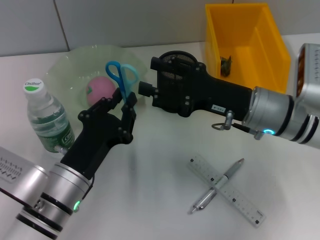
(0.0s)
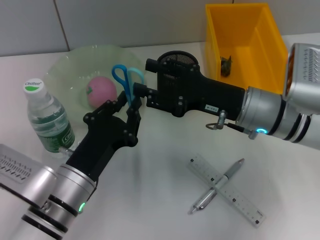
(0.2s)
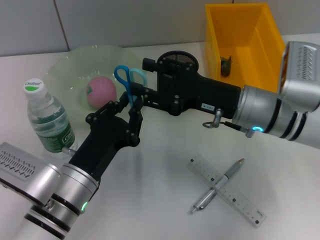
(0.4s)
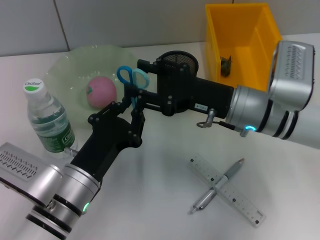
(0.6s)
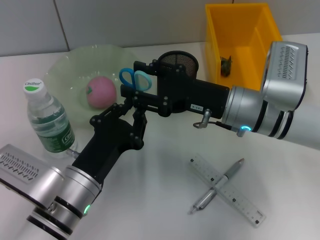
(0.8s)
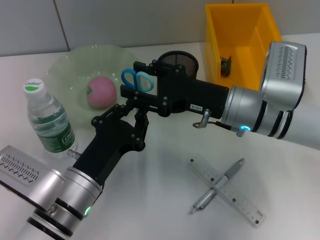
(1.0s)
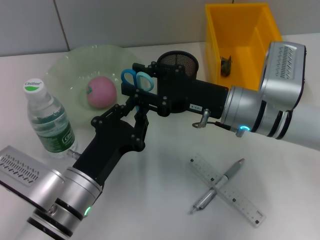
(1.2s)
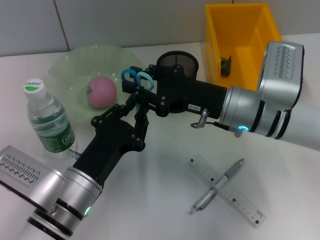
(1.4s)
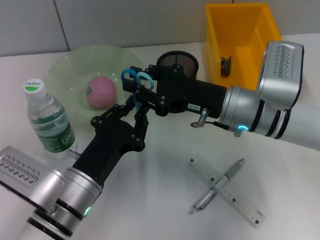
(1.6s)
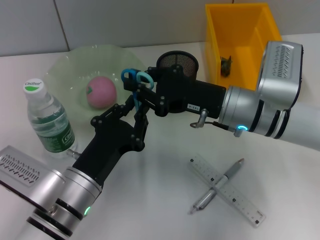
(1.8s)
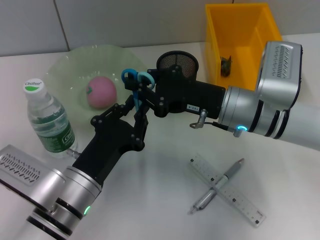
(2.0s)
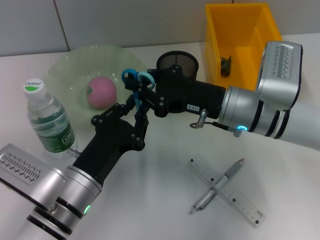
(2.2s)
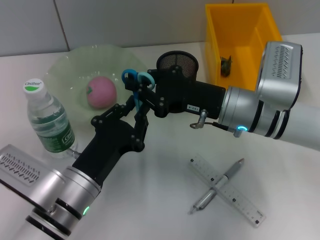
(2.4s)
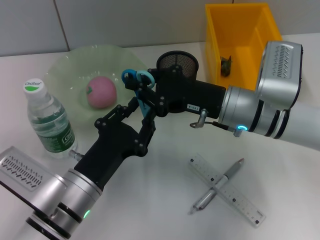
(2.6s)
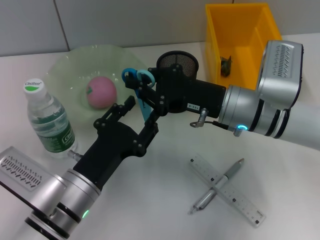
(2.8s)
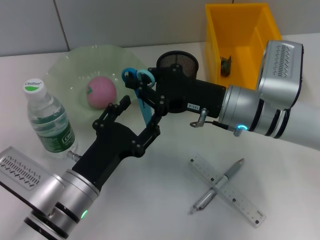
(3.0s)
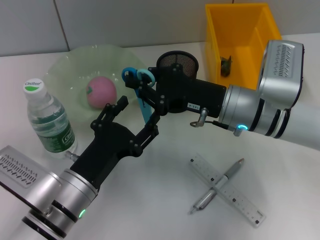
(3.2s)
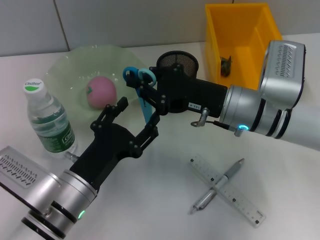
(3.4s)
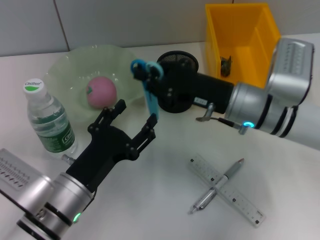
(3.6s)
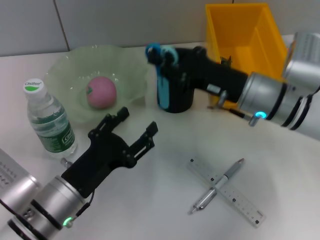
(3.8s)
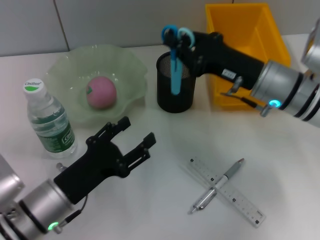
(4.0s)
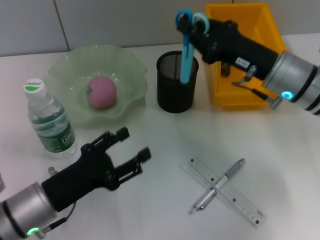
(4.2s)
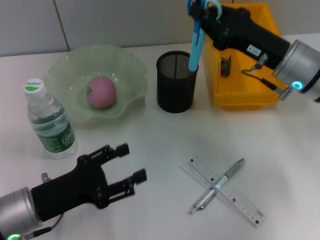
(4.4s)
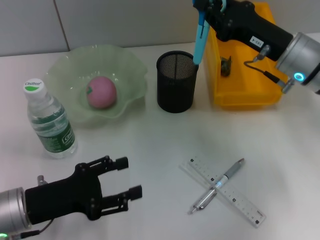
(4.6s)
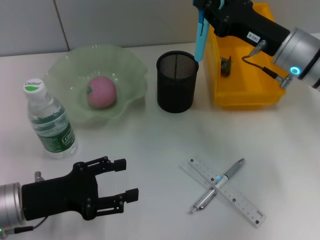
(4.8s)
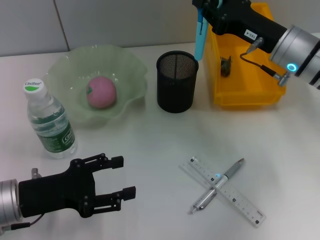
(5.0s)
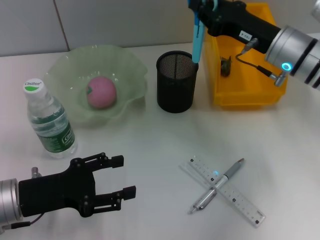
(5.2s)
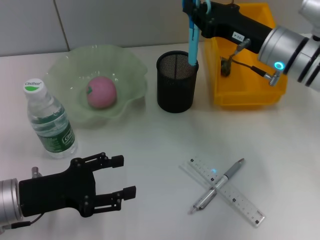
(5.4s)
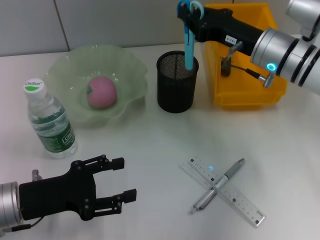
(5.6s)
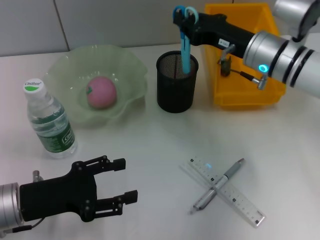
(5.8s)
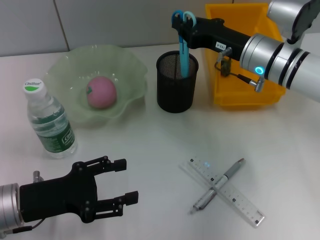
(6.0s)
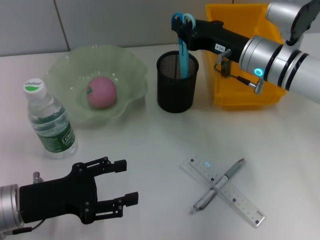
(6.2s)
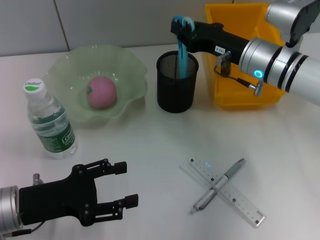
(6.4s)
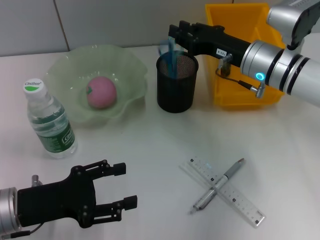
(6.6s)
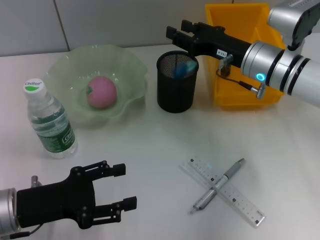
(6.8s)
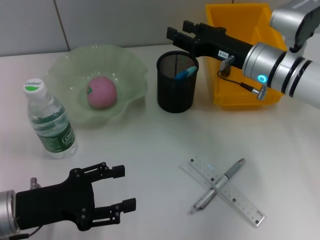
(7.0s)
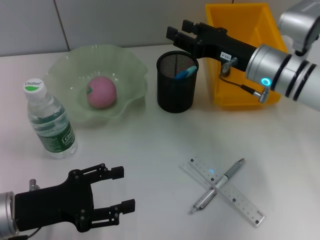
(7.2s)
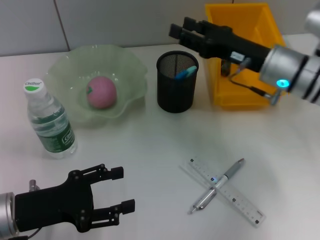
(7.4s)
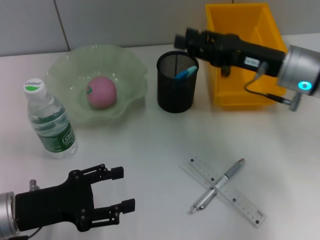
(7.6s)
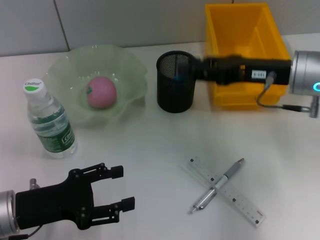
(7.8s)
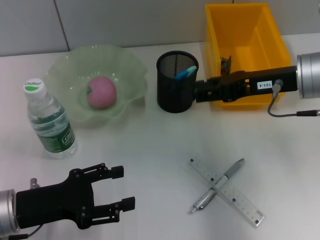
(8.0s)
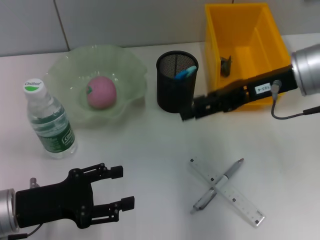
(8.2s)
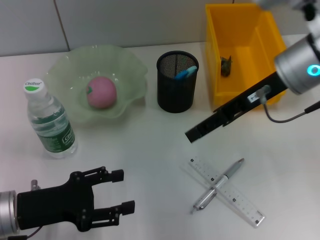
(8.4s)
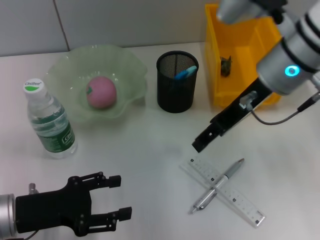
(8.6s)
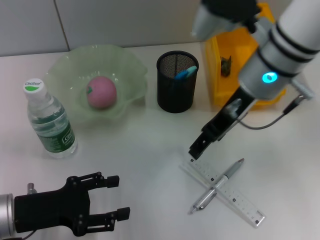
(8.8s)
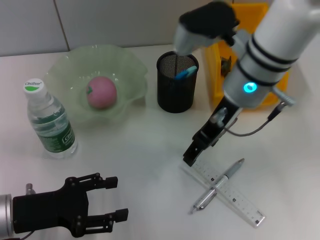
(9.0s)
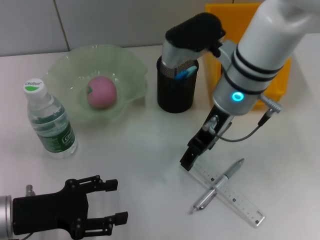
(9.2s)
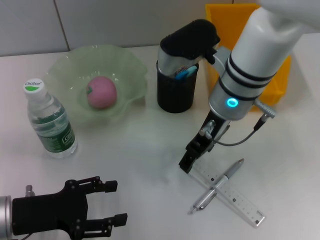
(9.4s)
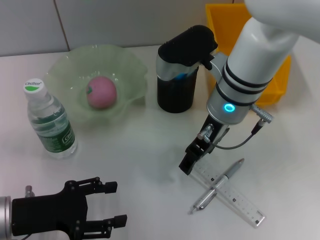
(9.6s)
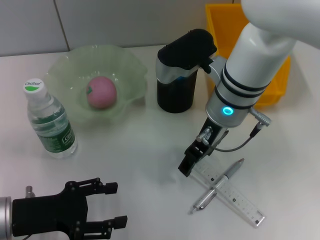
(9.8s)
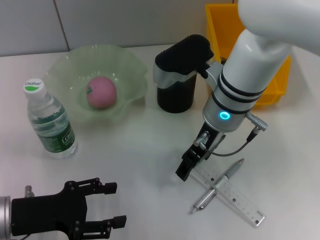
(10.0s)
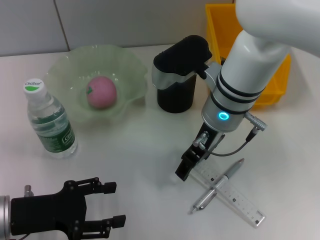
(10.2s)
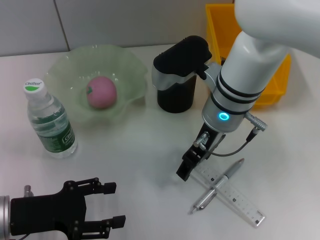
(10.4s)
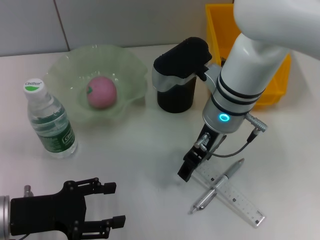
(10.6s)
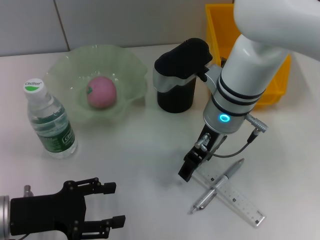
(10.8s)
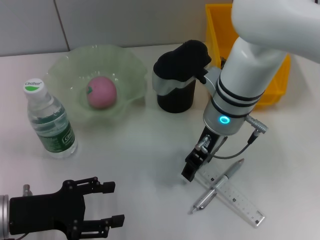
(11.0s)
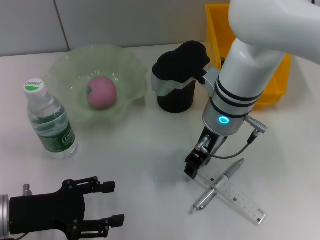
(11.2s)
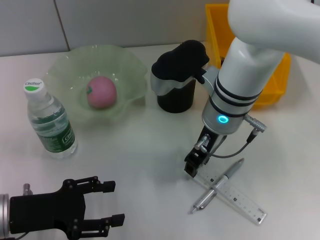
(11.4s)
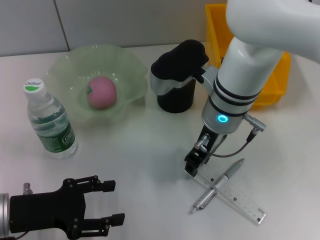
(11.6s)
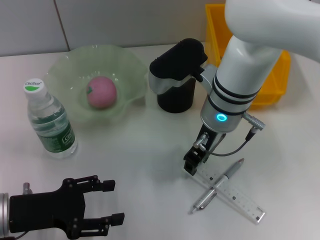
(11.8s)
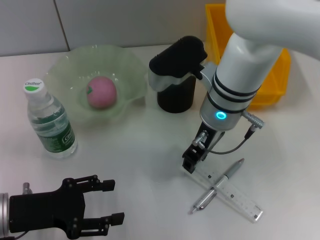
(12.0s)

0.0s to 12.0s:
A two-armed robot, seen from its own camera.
Step, 0.0s to 2.8s: Pass the blue scissors from the left hand to the right hand.
Step, 3.0s to 6.8s: Place the blue utility knife into the pen holder with the right hand.
Step, 7.0s to 11.6s: Grab the ruler with the right hand.
0.0s to 1.6s: The right gripper closes.
1.6s to 3.0s: The right gripper closes; the left gripper opens up.
3.0s to 4.4s: The right gripper goes about 5 cm to the right. The left gripper travels to the left by approximately 10 cm, and opens.
4.4s to 6.0s: The right gripper ends up roughly 5 cm from where it was.
6.0s to 7.6s: The right gripper is displaced backward by roughly 5 cm, and opens its fingers.
7.6s to 9.0s: The right gripper goes some 10 cm to the left.
9.0s to 10.4s: The right gripper ends up approximately 5 cm from where it was.
10.4s to 12.0s: The right gripper closes its fingers.

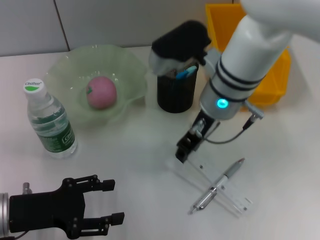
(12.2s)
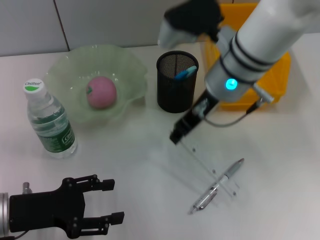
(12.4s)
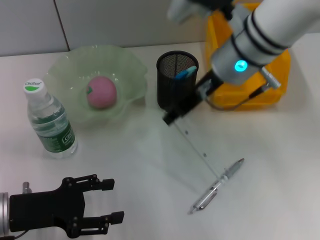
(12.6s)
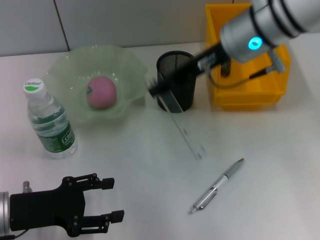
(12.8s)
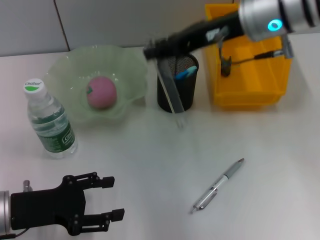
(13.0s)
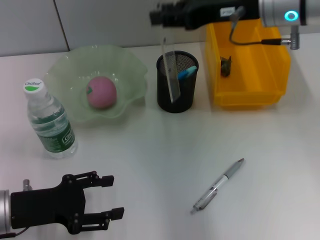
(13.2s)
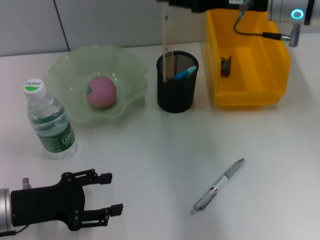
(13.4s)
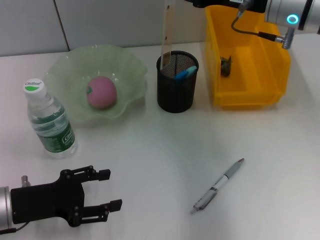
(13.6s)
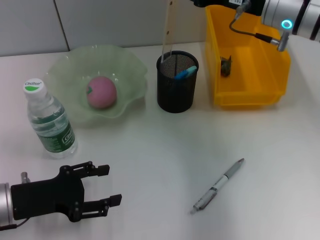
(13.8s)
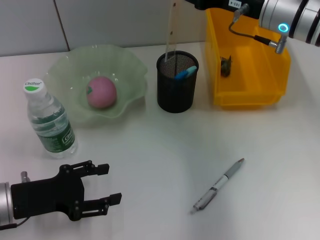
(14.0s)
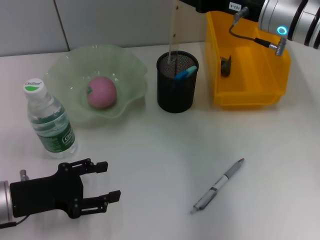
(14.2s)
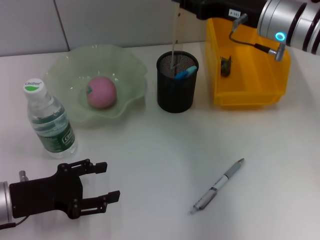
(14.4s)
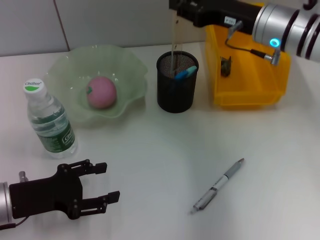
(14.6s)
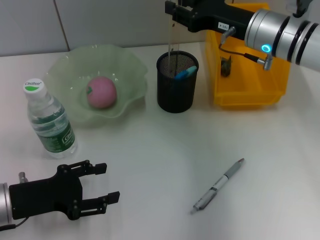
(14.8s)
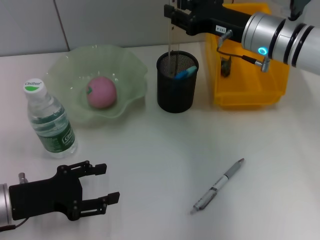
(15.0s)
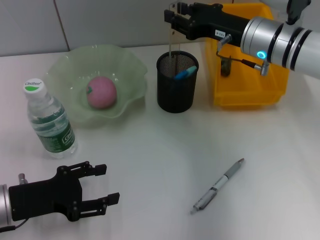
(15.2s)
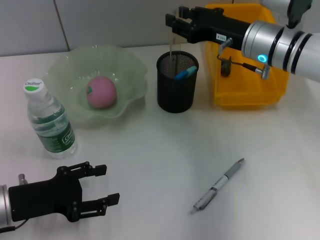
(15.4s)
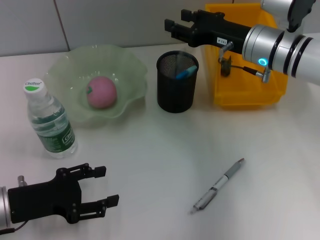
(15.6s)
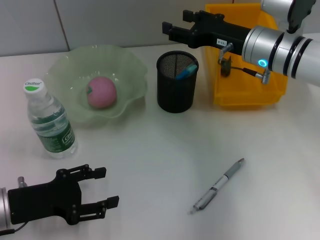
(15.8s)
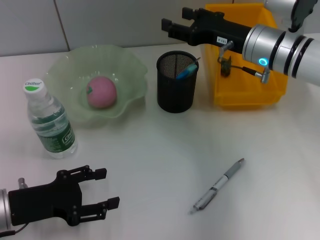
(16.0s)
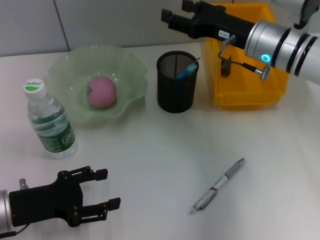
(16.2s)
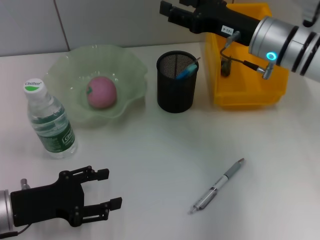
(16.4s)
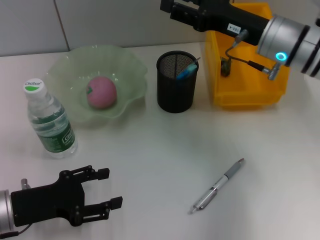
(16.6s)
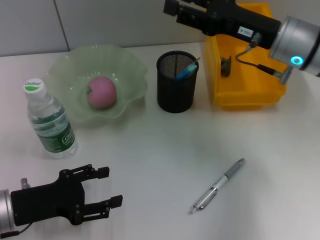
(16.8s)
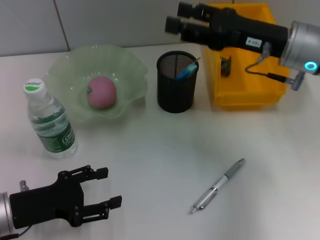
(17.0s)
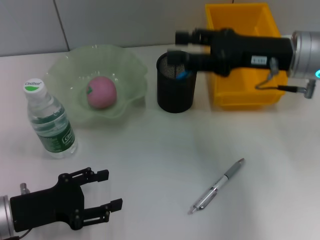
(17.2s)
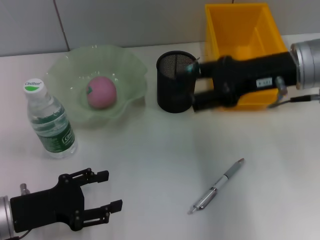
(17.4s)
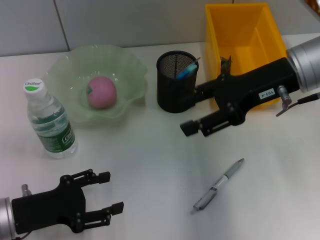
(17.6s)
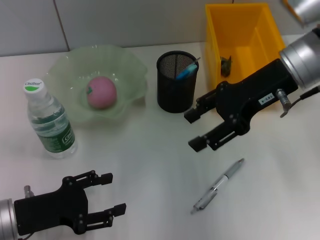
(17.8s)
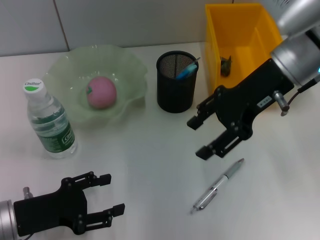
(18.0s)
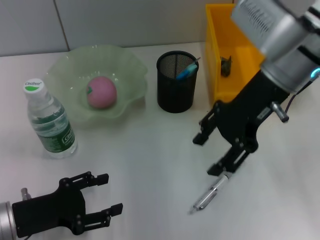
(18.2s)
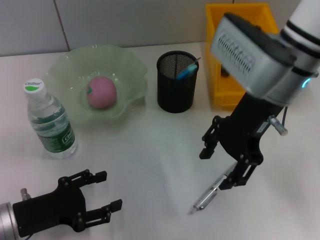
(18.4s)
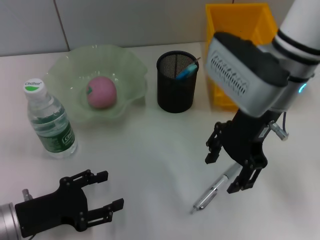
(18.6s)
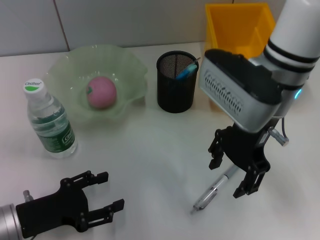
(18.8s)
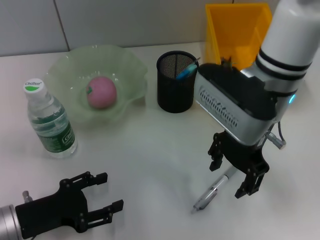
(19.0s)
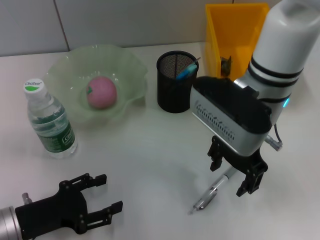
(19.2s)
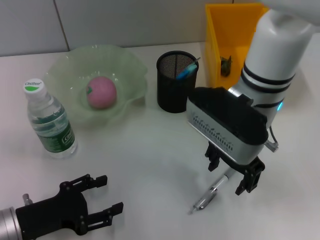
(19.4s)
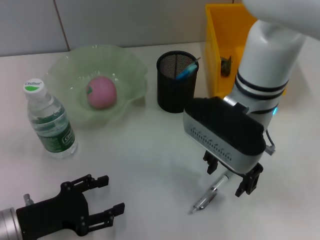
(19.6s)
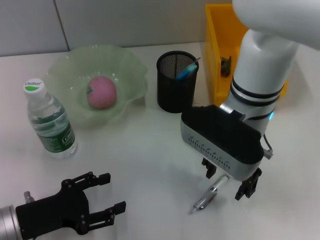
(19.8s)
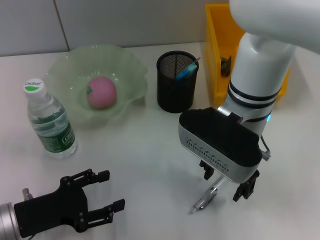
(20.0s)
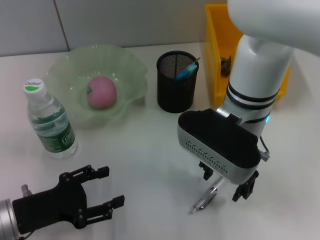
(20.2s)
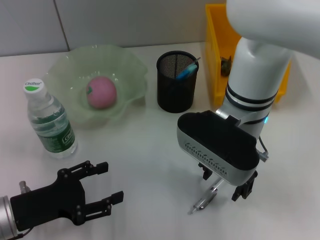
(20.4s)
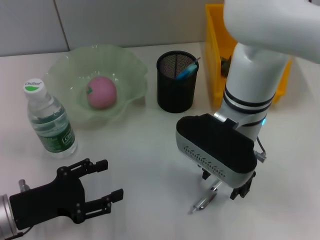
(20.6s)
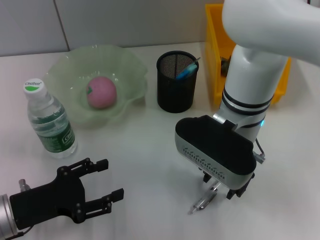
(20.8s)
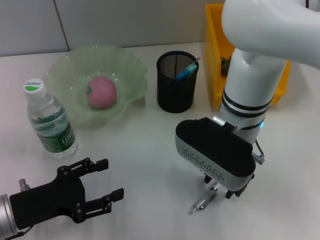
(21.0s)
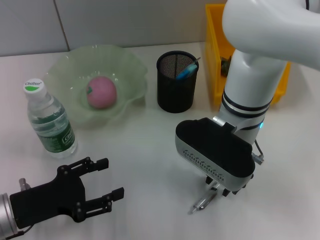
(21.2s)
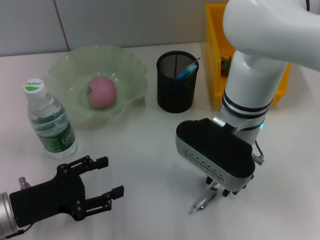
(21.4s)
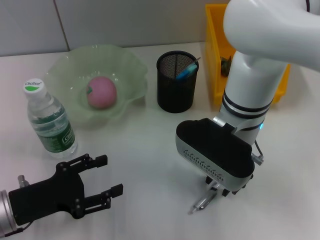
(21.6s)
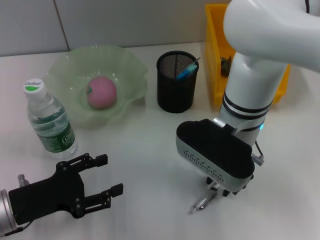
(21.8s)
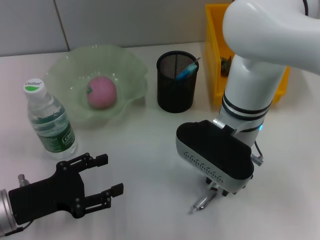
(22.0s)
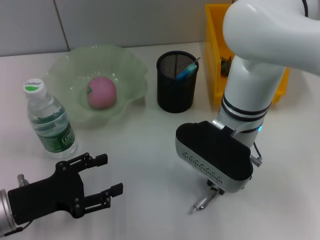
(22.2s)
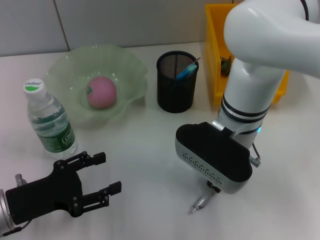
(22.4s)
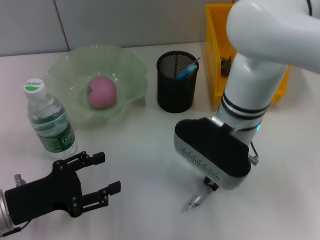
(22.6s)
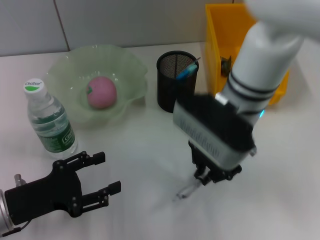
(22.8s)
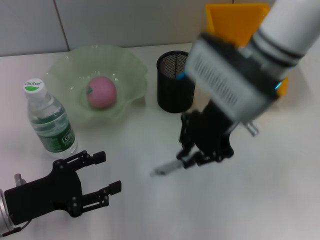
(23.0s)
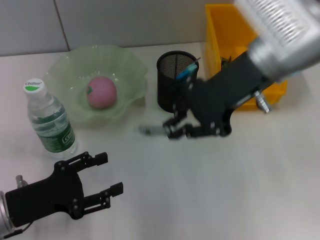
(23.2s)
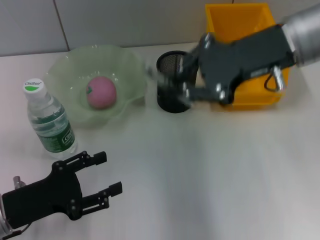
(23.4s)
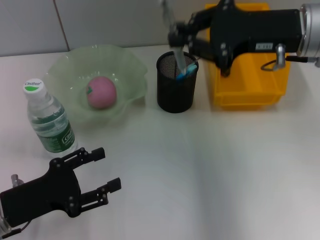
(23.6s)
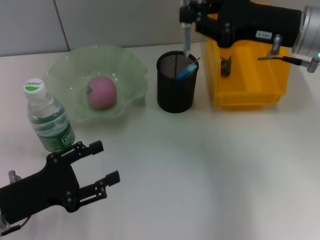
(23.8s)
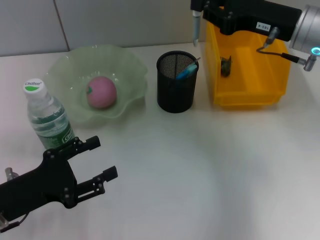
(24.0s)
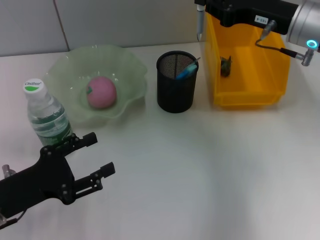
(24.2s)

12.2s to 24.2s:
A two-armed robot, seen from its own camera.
Step, 12.2s to 15.8s: Place the ruler into the pen holder with the right hand.
Step, 16.0s to 22.2s: Grab the gray spring-action pen with the right hand.
12.2s to 13.8s: The right gripper travels to the right by about 10 cm.
13.8s to 15.2s: The right gripper moves downward, about 5 cm.
15.2s to 16.6s: The right gripper opens its fingers.
16.6s to 18.2s: The right gripper moves upward, some 5 cm.
18.2s to 19.8s: The right gripper heads to the left and downward, covering roughly 10 cm.
21.2s to 22.6s: The right gripper closes.
22.6s to 24.2s: The right gripper travels to the right by some 15 cm.
